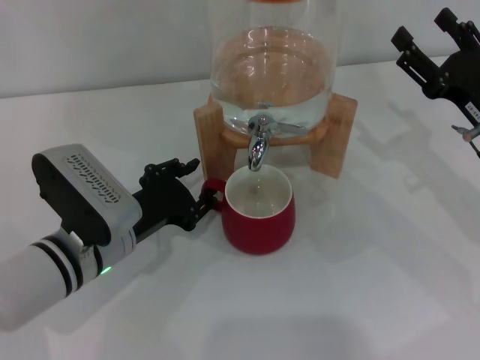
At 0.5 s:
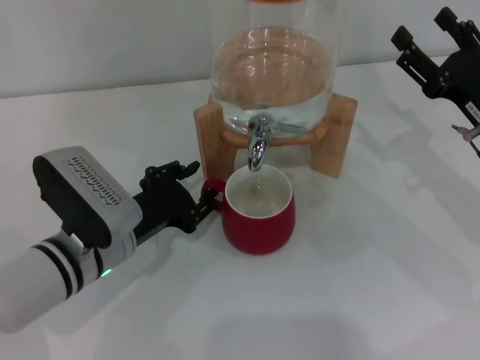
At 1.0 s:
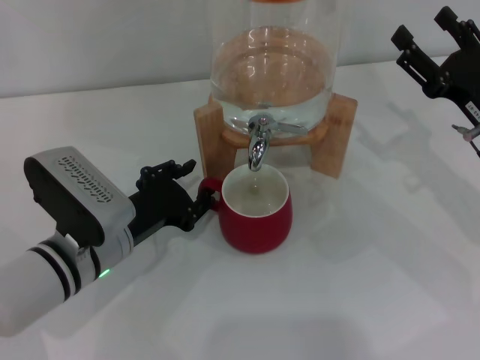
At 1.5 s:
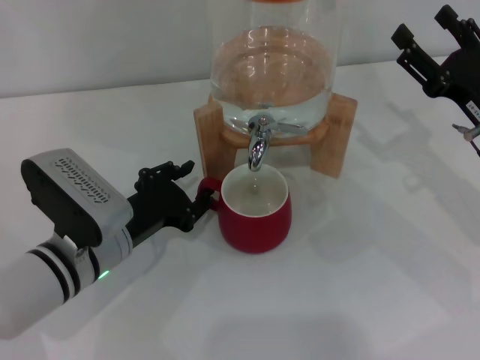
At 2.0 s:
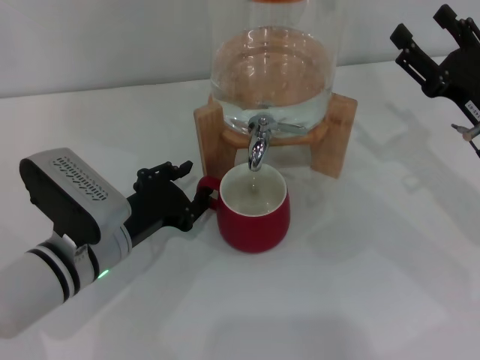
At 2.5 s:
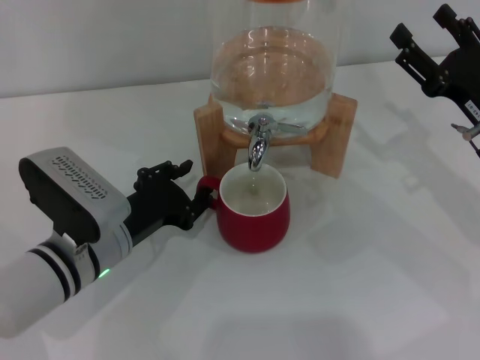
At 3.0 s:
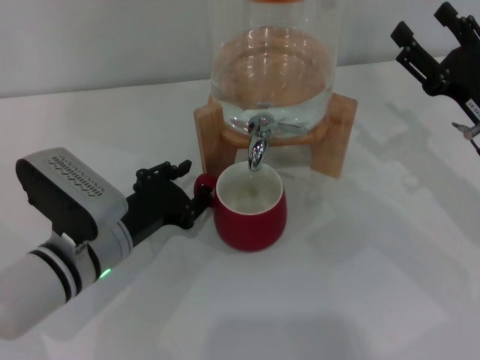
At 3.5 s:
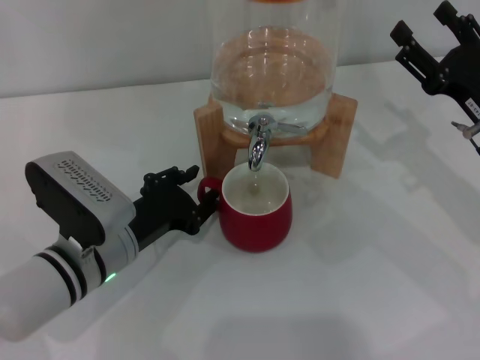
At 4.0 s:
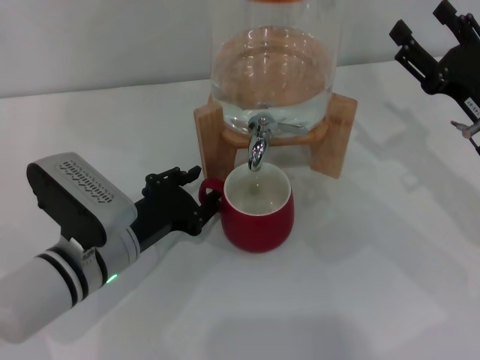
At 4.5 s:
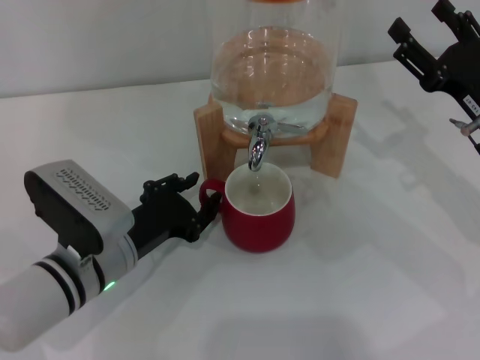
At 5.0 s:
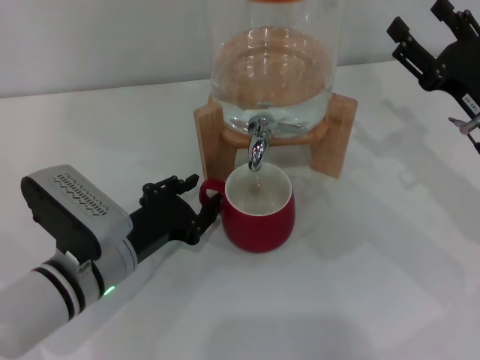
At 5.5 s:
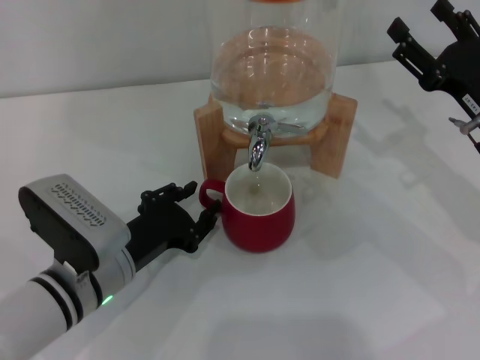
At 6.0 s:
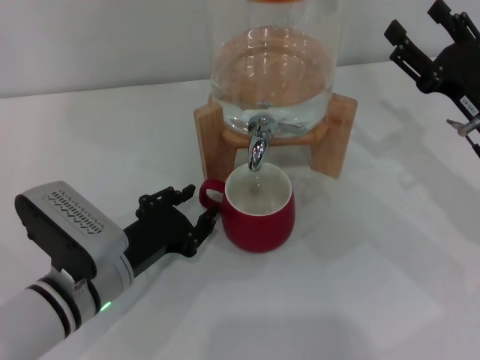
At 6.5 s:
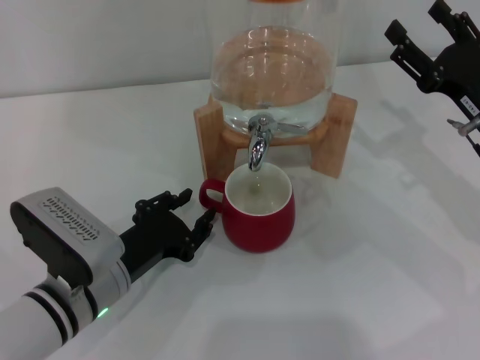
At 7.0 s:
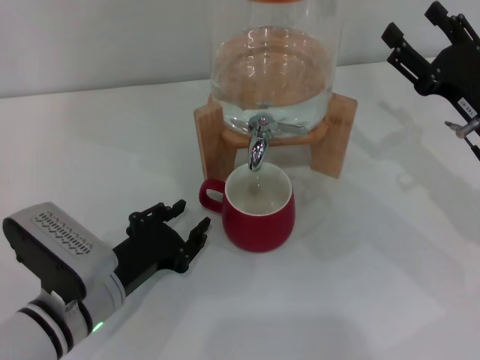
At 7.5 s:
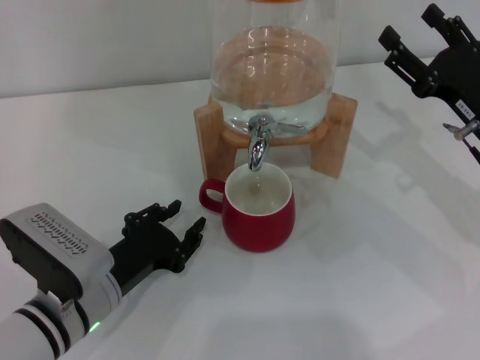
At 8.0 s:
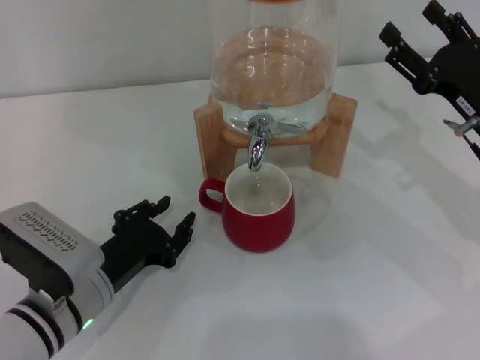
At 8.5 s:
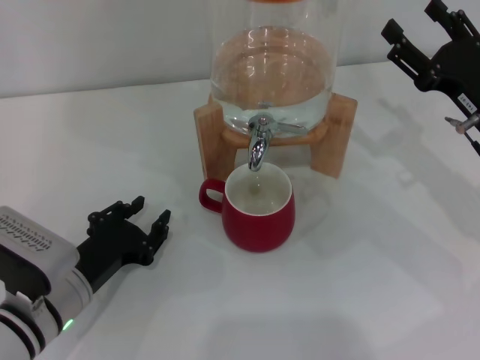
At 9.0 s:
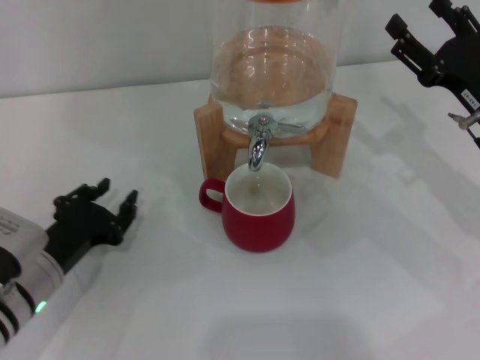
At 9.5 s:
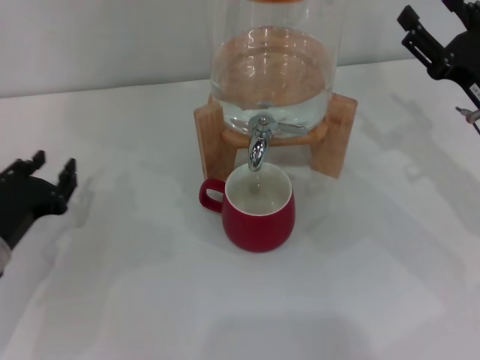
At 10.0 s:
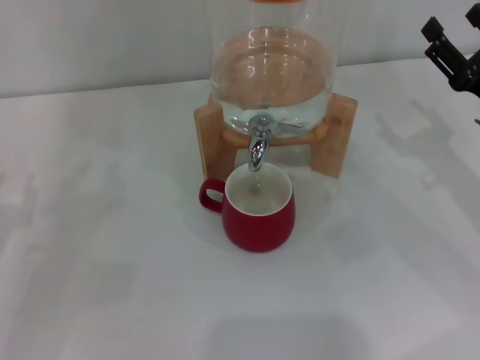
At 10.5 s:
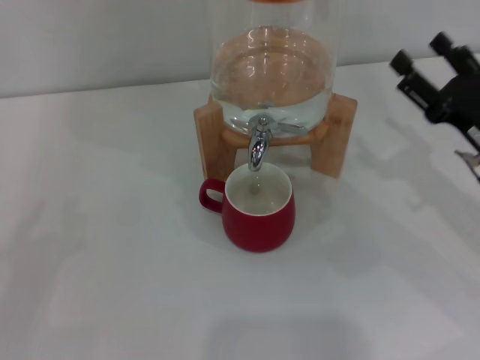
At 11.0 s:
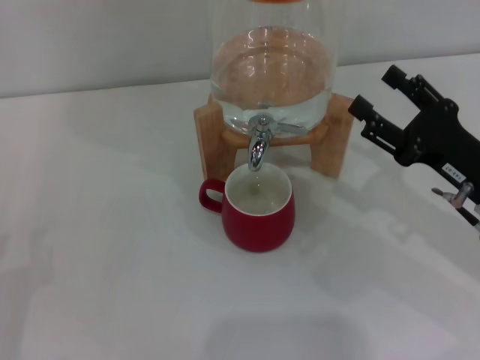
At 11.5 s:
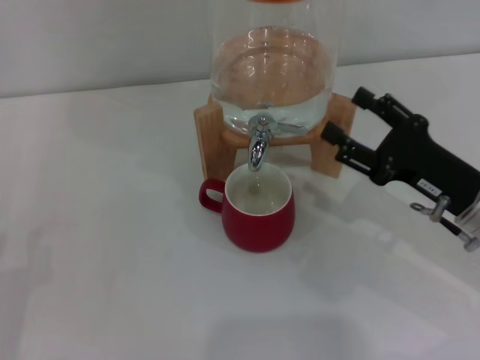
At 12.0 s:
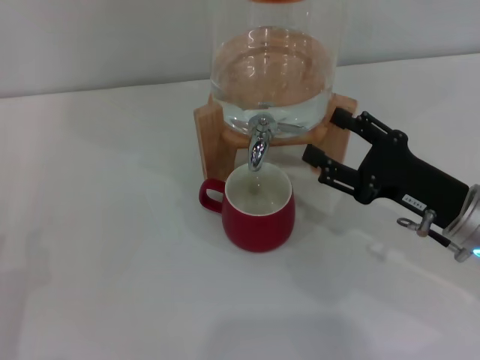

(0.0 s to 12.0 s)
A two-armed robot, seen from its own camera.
Task of the whole recording: the left gripper pick up the red cup and place it horizontally under the faucet, the right gripper turn on the faucet to fill the cup, and then turn off the faucet.
Step, 0.0 s - 8.0 s: Move the cup beneath the water dispenser nozzle with the left gripper.
0.0 s - 2.0 s: The grippers stay close to where they were, moving slightly.
2.0 s - 4.0 s: Both grippers stay about where they are.
4.0 s - 8.0 s: The grippers make only small movements.
8.0 s - 10.0 s: The left gripper shifts approximately 15 cm to the left.
10.0 s - 12.0 s: The right gripper shifts approximately 5 cm to the left.

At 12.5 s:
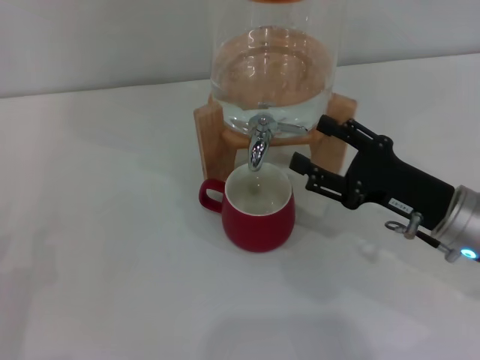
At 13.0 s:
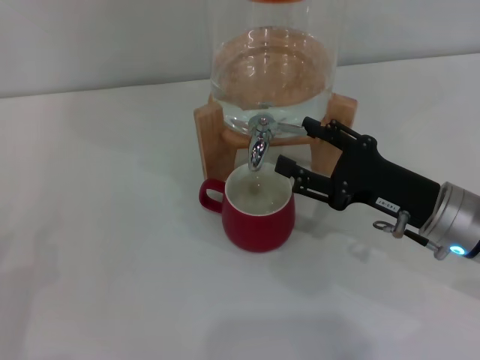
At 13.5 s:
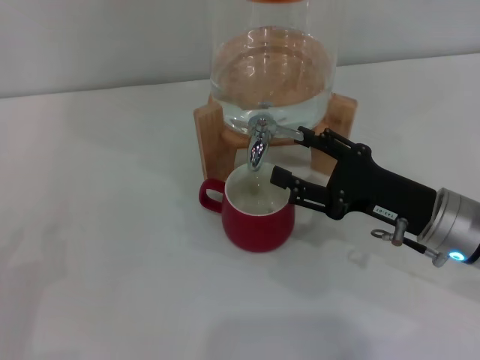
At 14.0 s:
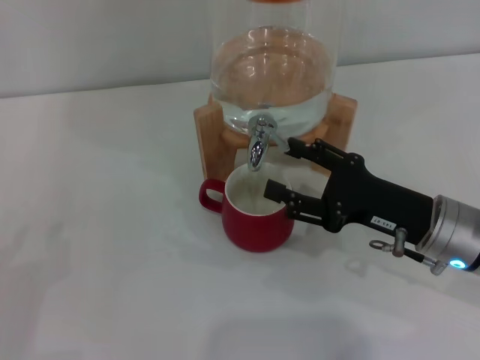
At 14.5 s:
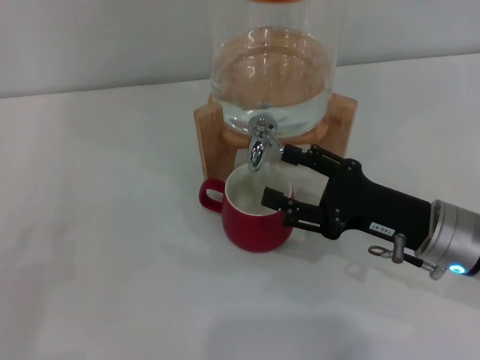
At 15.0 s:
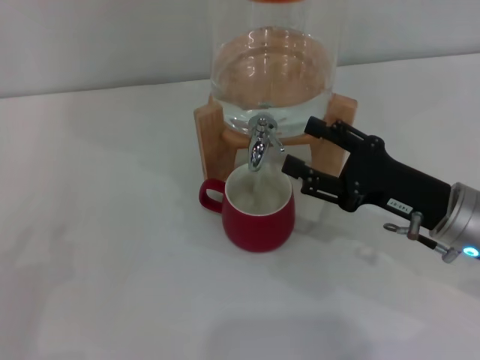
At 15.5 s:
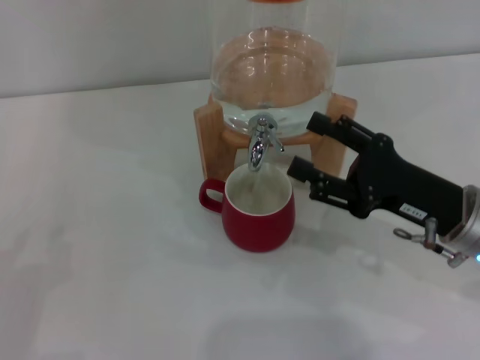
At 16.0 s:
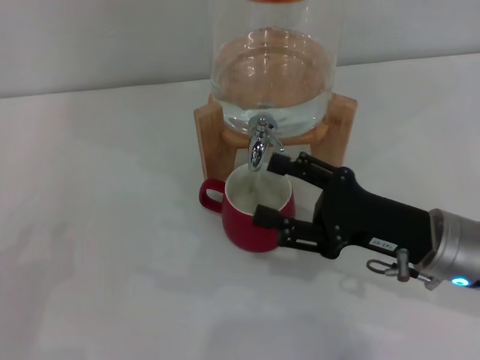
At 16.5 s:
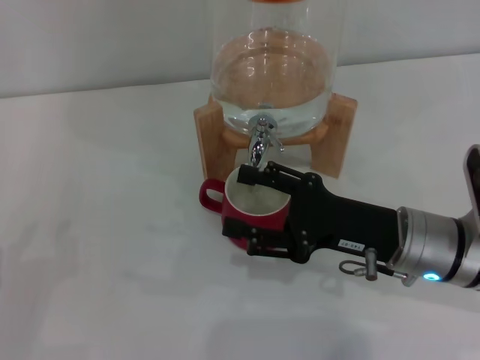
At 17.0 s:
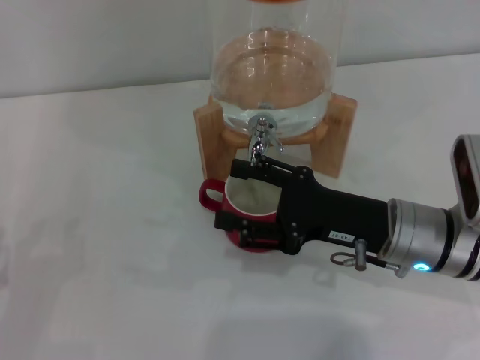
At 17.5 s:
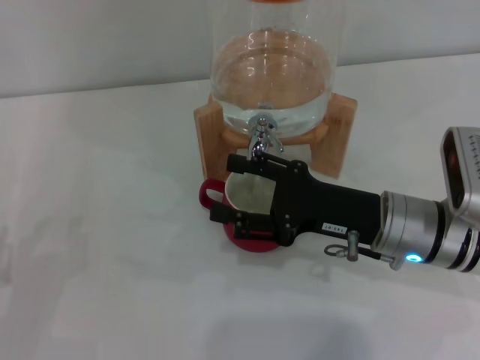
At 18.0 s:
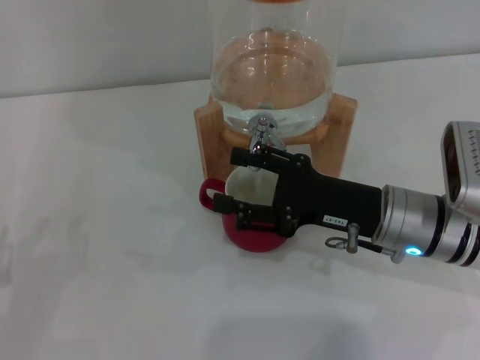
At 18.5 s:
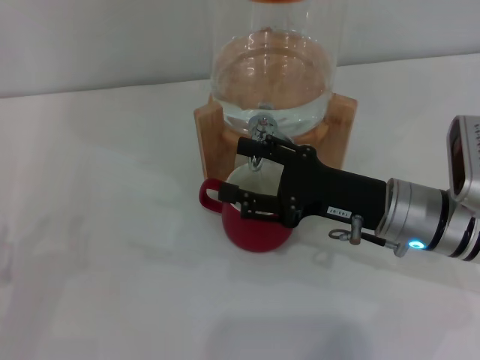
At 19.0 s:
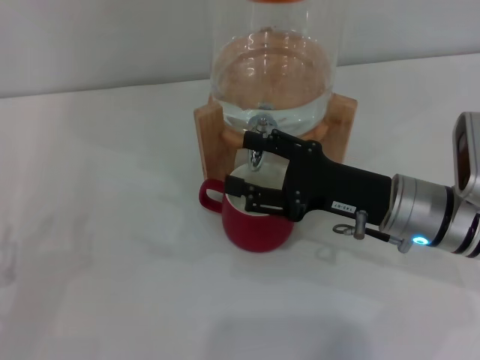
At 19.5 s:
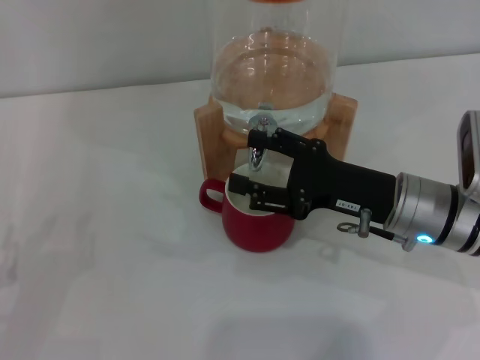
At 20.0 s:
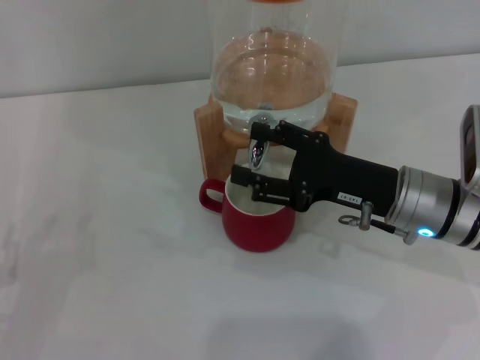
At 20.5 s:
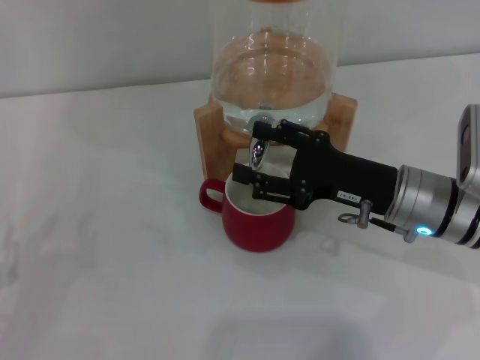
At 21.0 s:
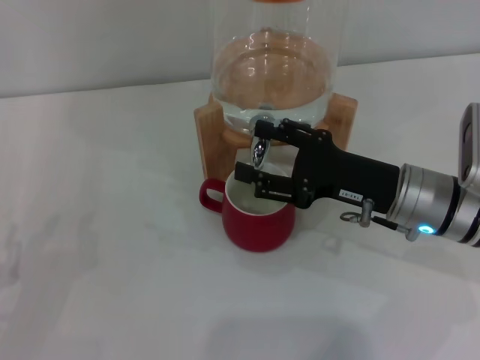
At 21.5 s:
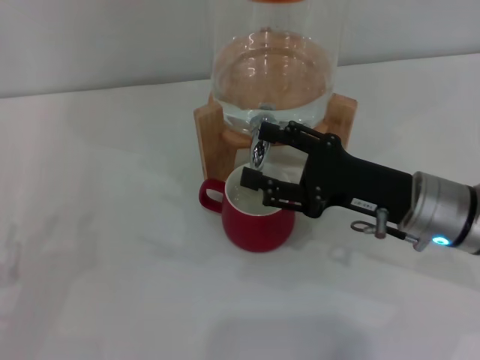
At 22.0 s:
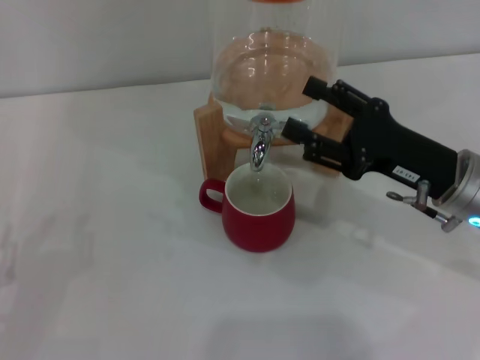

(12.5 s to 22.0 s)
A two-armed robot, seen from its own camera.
Task of the whole recording: the left gripper pick up the red cup and place it horizontally under the faucet, the right gripper turn on the faucet to fill the cup, and then turn off the faucet.
Step, 12.5 s - 15.5 s: Open the dispenser valve and fill the cup with water with the right gripper.
Step, 16.0 s - 21.5 s: Close the dispenser valve with the right gripper.
12.5 s - 14.5 s: There are only small adjustments of the grippers.
14.5 s - 22.0 s: The grippers move only a little.

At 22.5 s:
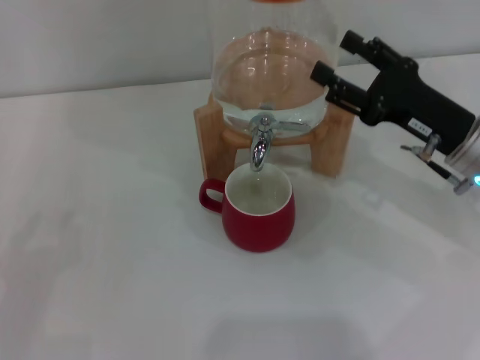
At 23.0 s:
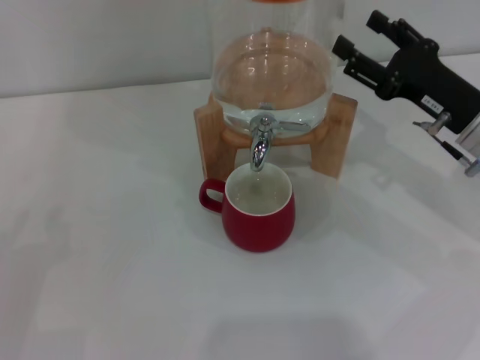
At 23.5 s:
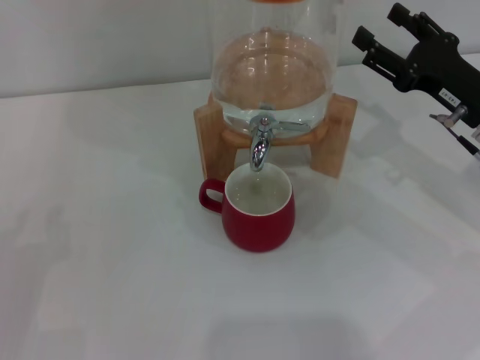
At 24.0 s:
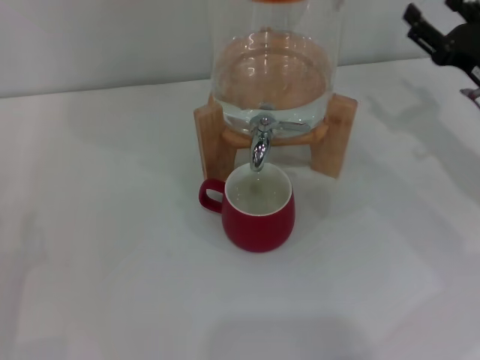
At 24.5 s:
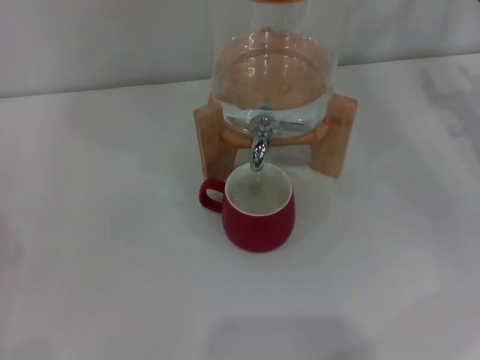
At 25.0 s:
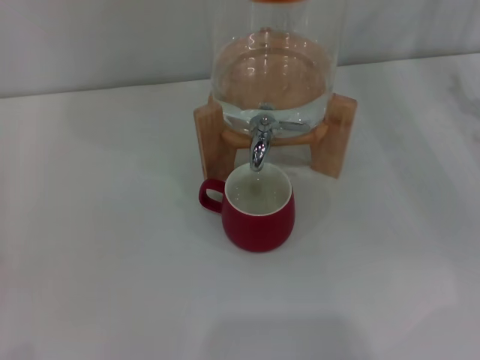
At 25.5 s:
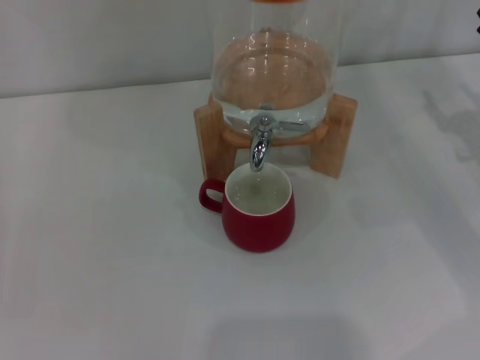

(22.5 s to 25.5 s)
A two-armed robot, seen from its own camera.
Task of the whole recording: the left gripper pick up the red cup and place it horizontally under the faucet, the right gripper turn on the faucet to fill the cup, and then turn off the faucet.
22.5 s - 24.0 s: The right gripper goes roughly 5 cm to the right.
